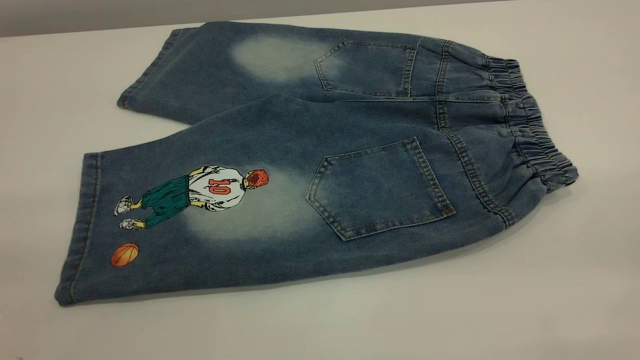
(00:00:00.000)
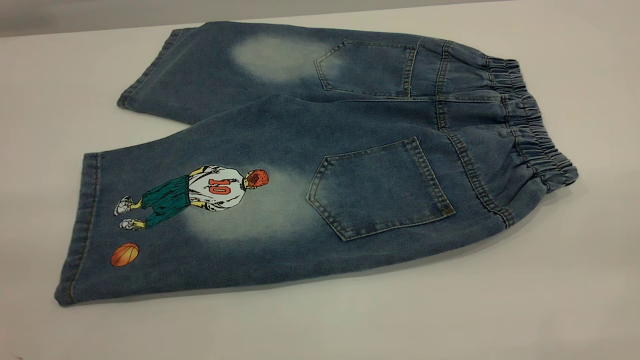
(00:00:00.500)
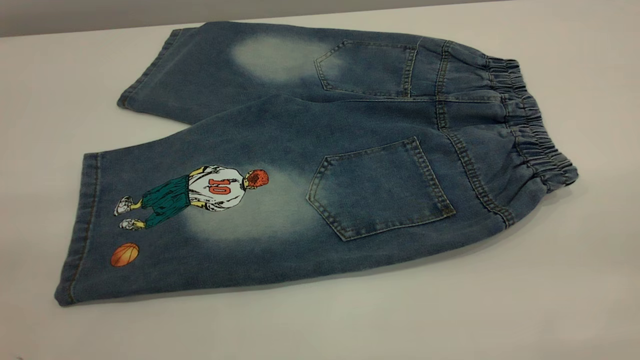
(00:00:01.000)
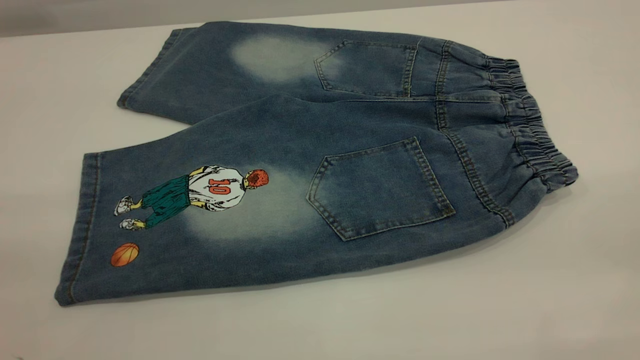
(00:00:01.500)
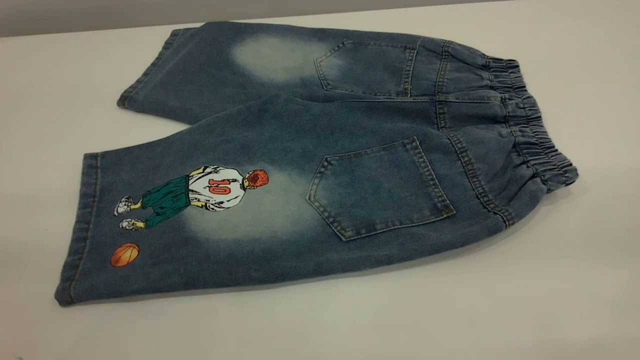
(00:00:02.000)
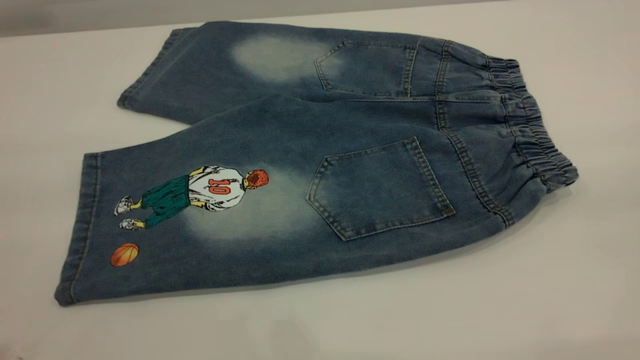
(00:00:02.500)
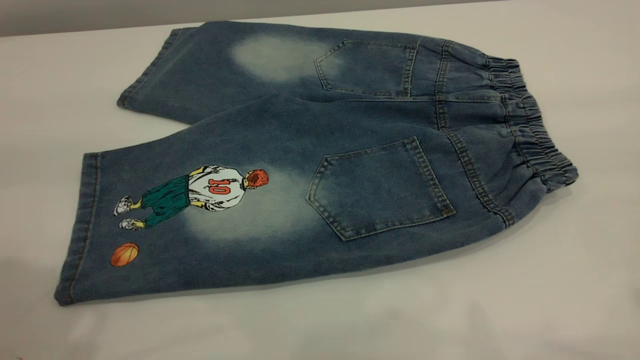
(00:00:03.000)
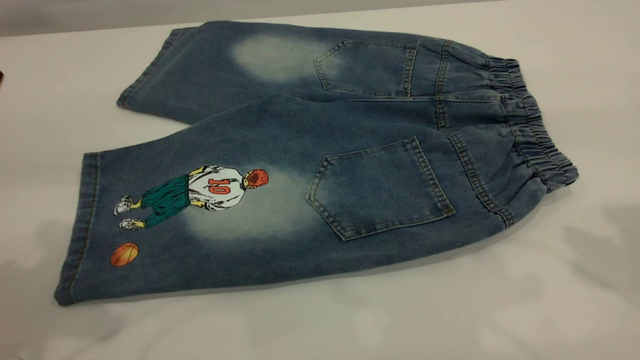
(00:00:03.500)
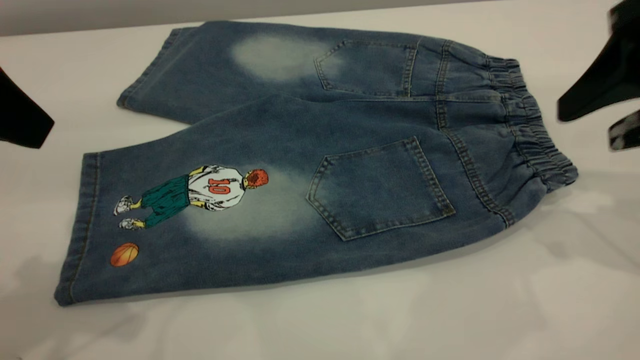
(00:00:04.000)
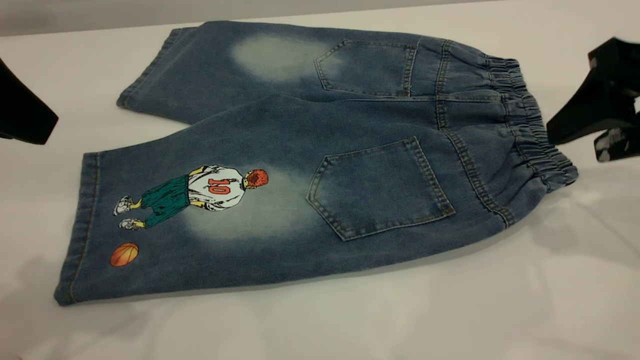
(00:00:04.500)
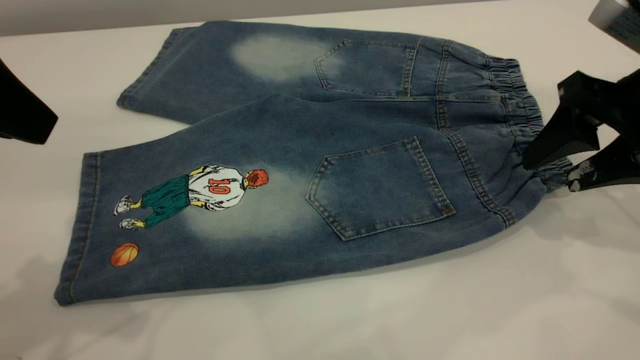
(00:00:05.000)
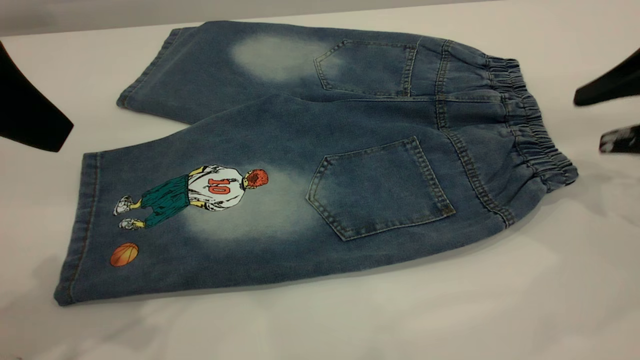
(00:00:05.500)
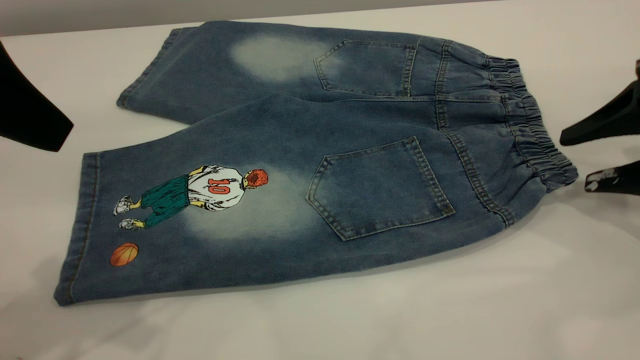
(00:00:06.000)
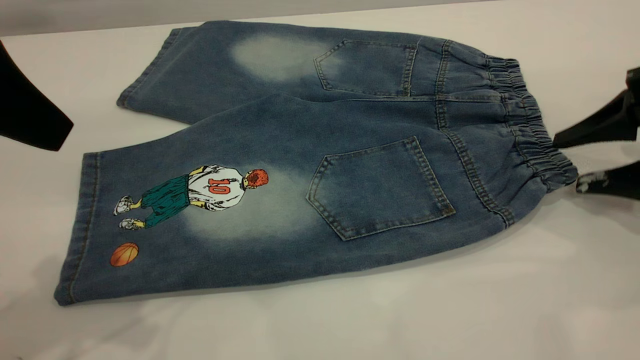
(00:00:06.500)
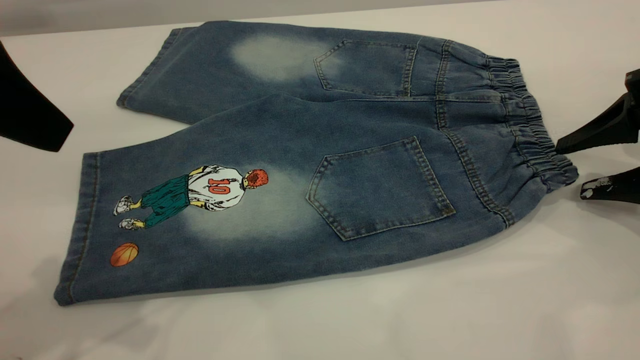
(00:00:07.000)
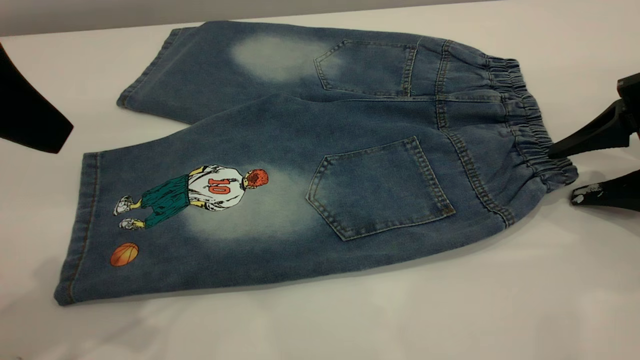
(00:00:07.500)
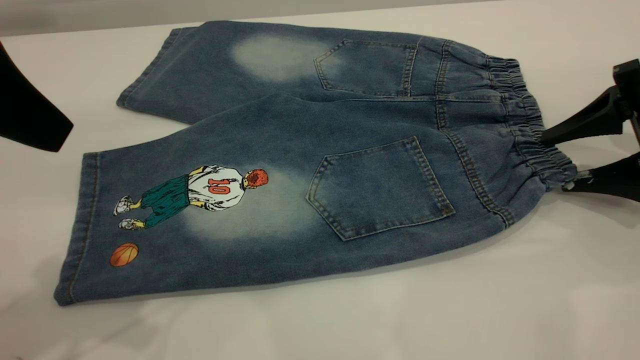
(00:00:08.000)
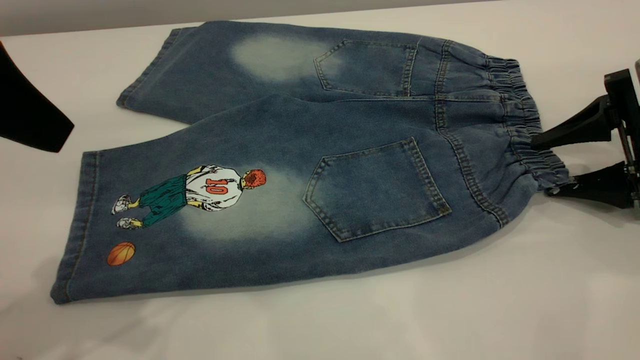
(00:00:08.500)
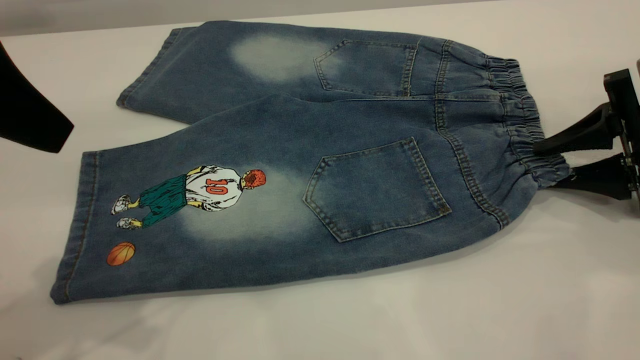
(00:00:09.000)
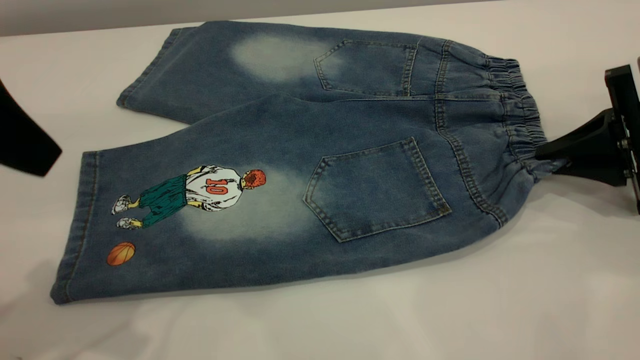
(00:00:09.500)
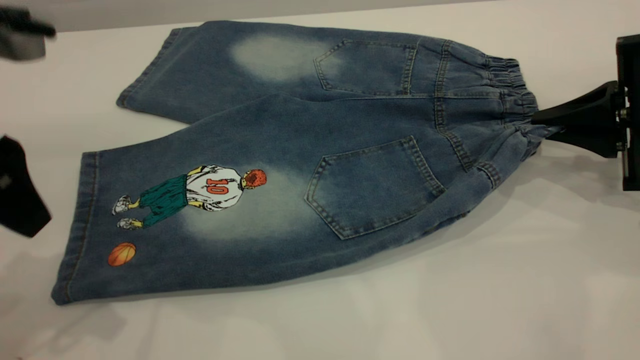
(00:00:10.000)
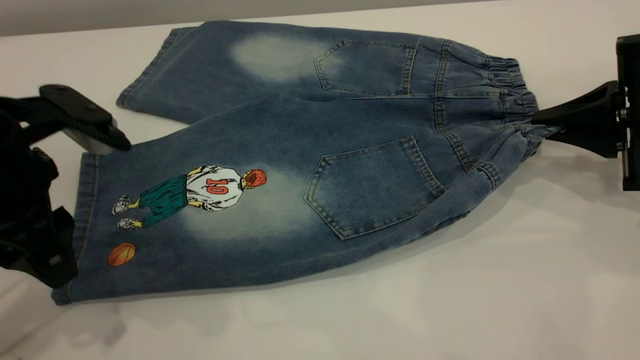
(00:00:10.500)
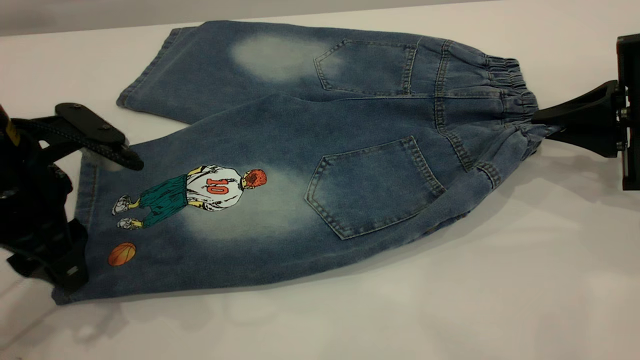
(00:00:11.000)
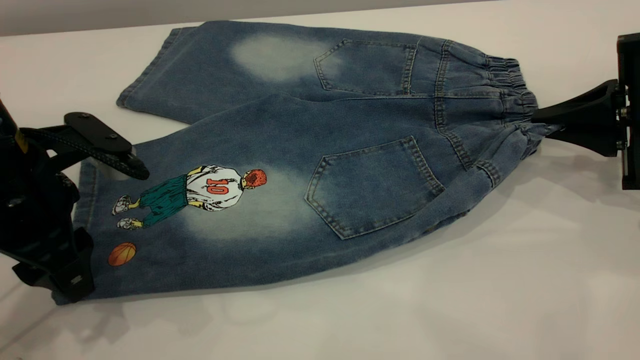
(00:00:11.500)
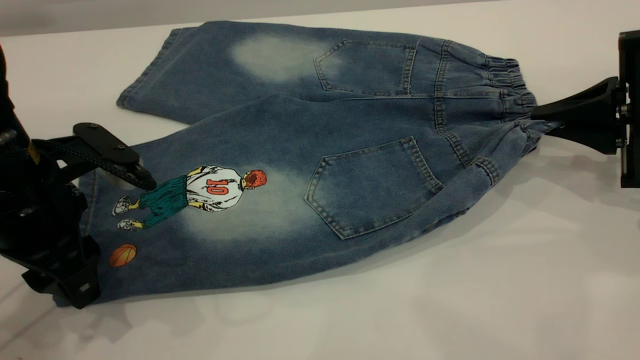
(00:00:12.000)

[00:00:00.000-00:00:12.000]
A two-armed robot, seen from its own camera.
00:00:00.000 to 00:00:02.000: Both grippers stay about where they are.
00:00:02.000 to 00:00:04.000: The right gripper shifts approximately 30 cm forward and downward. Meanwhile the left gripper is displaced forward by approximately 20 cm.
00:00:04.000 to 00:00:06.000: The right gripper moves downward and to the right, roughly 10 cm.
00:00:06.000 to 00:00:08.000: There are only small adjustments of the grippers.
00:00:08.000 to 00:00:10.000: The right gripper closes. Meanwhile the left gripper is displaced downward by some 5 cm.
00:00:10.000 to 00:00:12.000: The left gripper is displaced downward by about 10 cm.

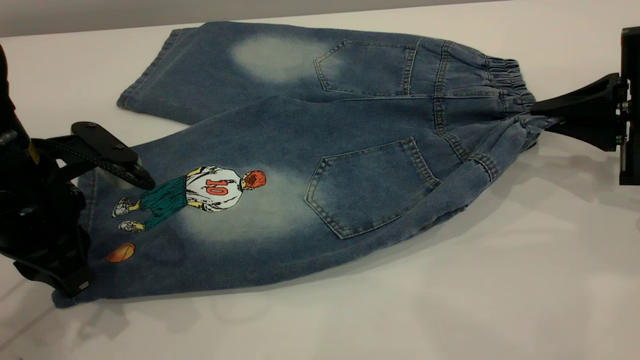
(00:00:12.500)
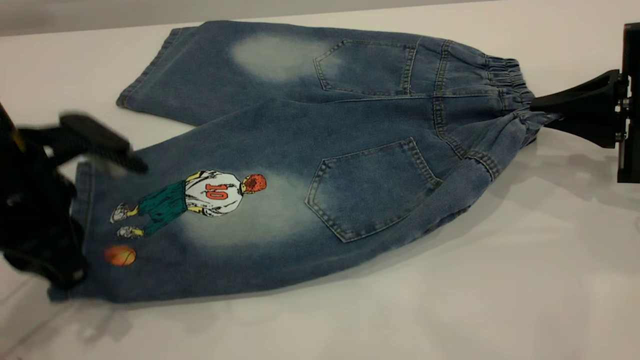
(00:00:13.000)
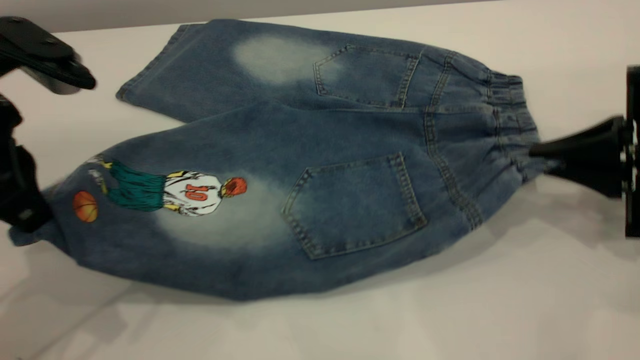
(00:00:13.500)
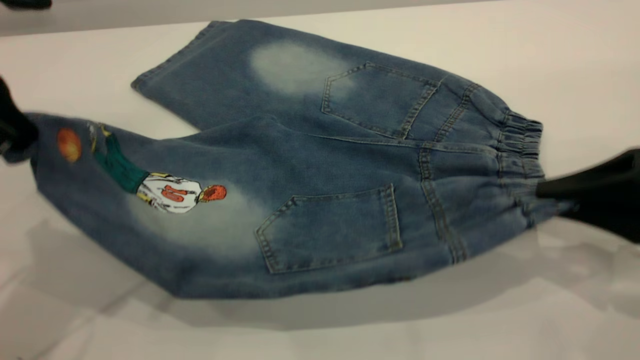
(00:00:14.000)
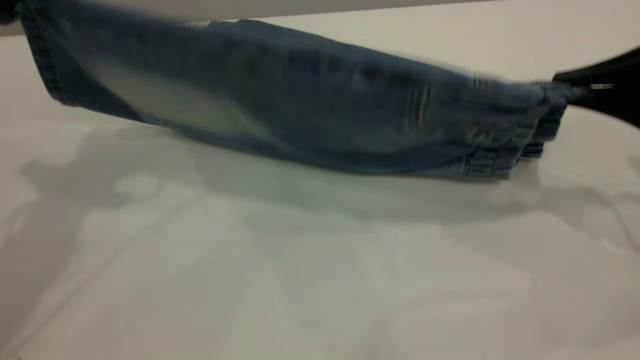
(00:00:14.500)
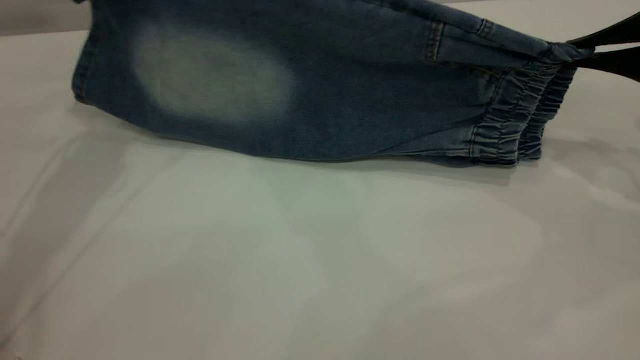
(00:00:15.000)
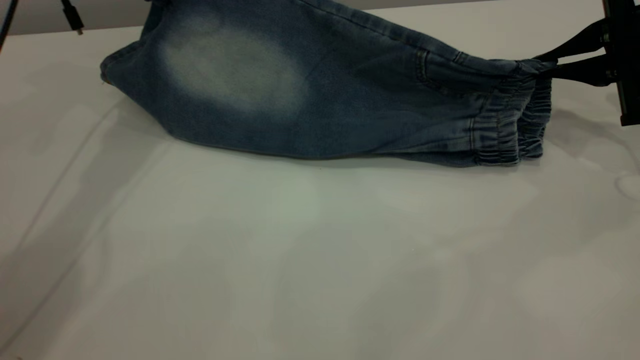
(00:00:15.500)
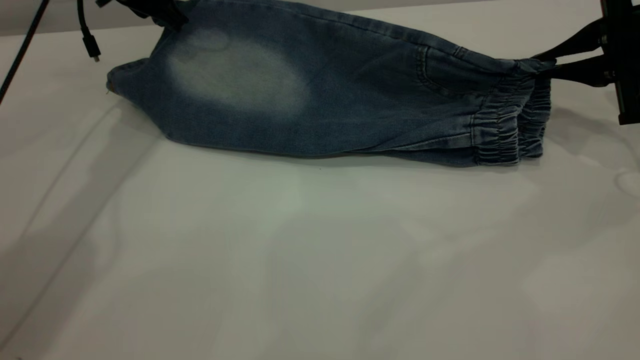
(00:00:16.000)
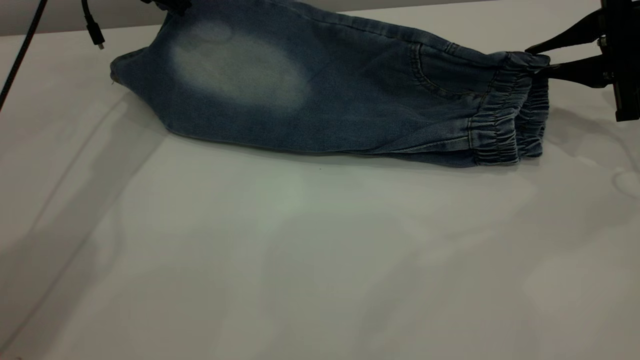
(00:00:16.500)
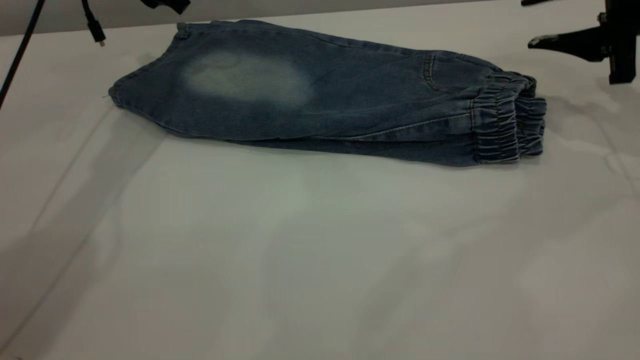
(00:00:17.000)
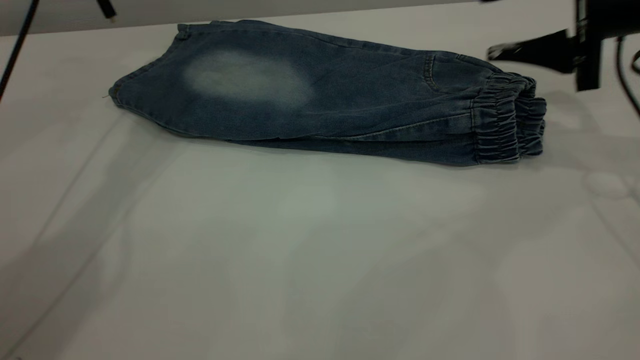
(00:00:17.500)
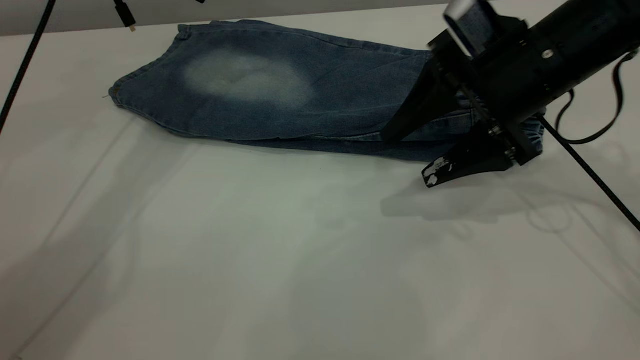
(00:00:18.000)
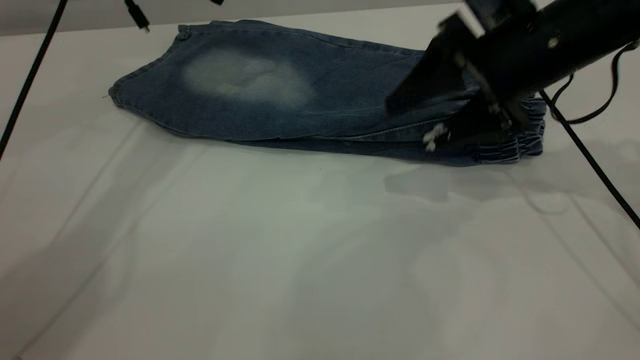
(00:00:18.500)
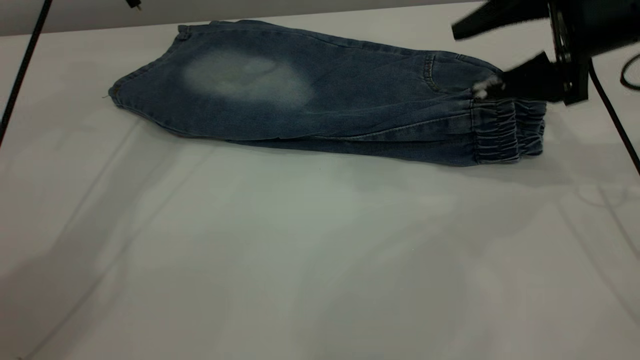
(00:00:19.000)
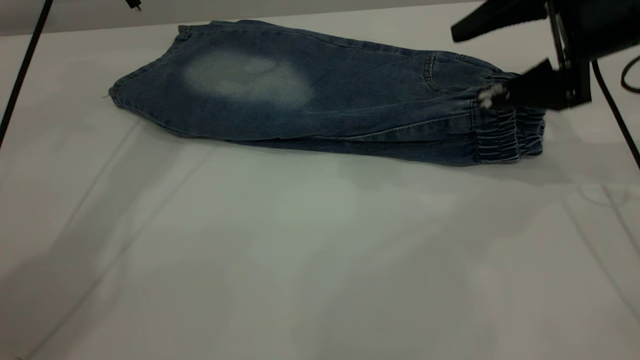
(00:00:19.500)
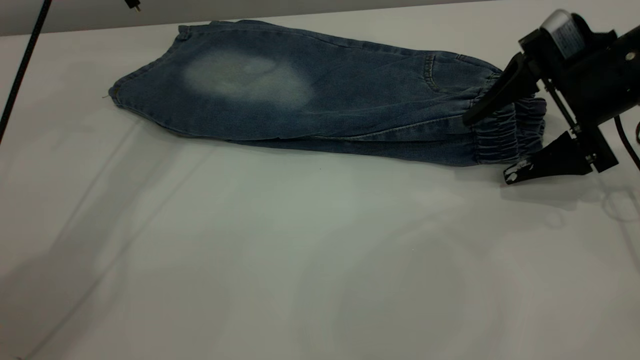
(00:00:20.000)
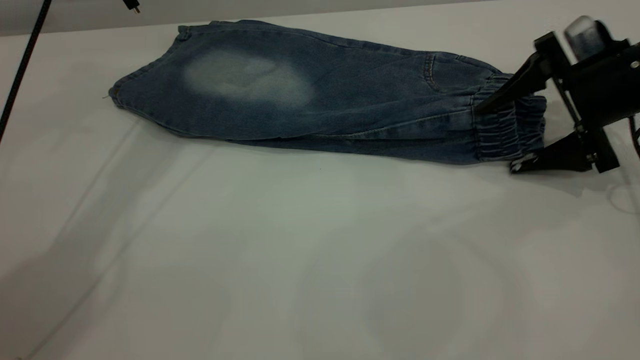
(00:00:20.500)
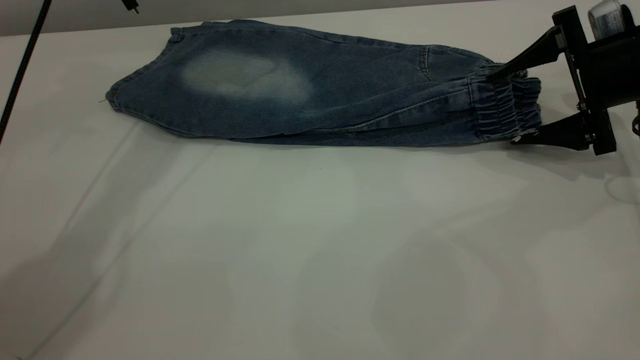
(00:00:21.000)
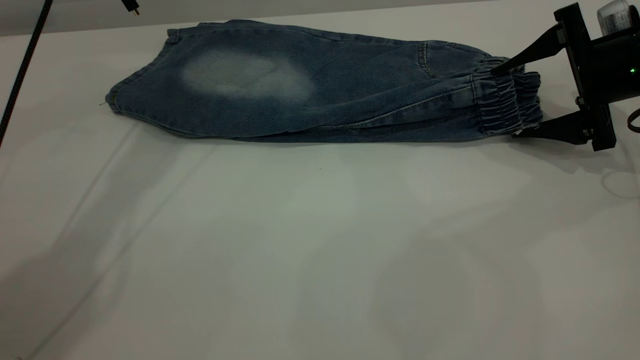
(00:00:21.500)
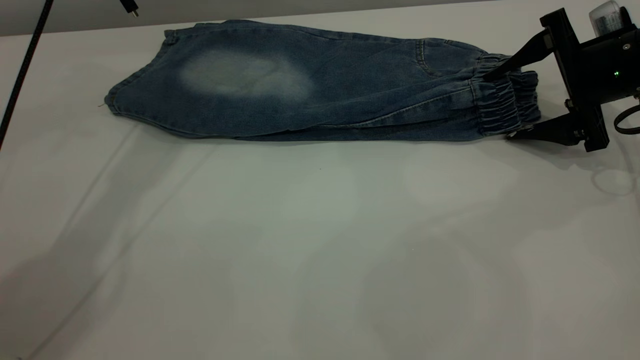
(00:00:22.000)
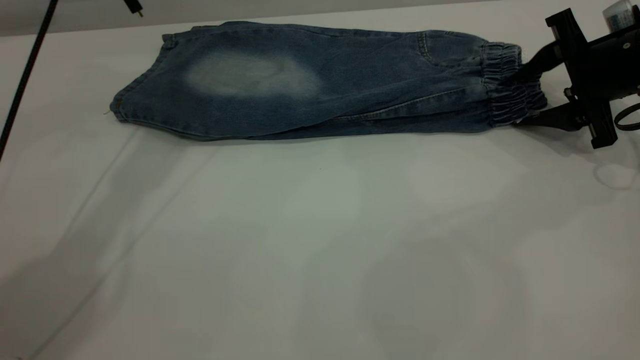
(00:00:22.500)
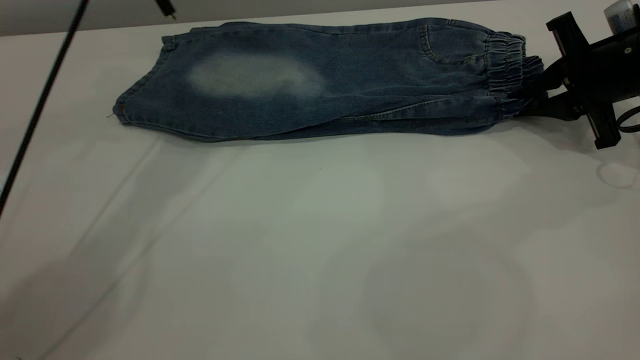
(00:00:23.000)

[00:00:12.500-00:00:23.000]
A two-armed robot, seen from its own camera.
Step, 00:00:12.500 to 00:00:16.500: Fold the bottom of the pants upward.
00:00:12.500 to 00:00:14.500: The left gripper shifts about 20 cm upward and forward. The right gripper goes about 5 cm upward.
00:00:14.500 to 00:00:16.500: The left gripper travels forward and downward by approximately 20 cm. Meanwhile the right gripper shifts approximately 10 cm forward.
00:00:16.500 to 00:00:19.000: The right gripper travels to the left by about 5 cm, and opens; the left gripper moves upward, roughly 5 cm, and opens.
00:00:19.000 to 00:00:21.000: The right gripper shifts about 5 cm downward.
00:00:21.000 to 00:00:23.000: The right gripper closes up. The left gripper moves about 5 cm.
